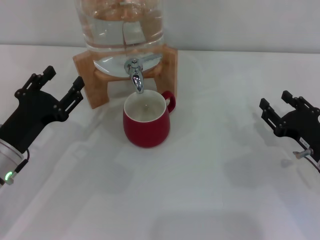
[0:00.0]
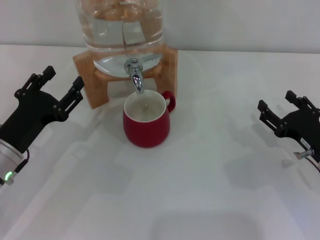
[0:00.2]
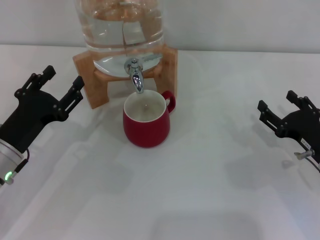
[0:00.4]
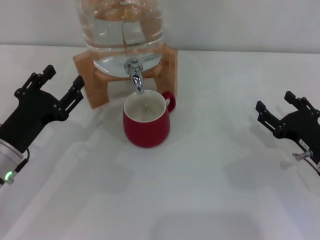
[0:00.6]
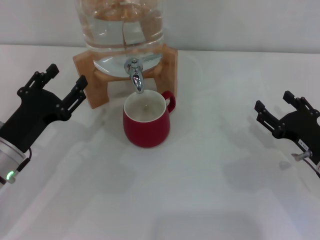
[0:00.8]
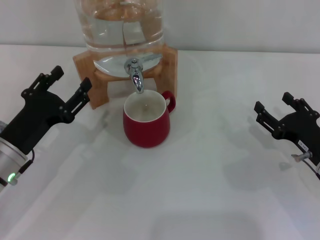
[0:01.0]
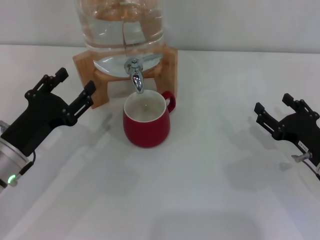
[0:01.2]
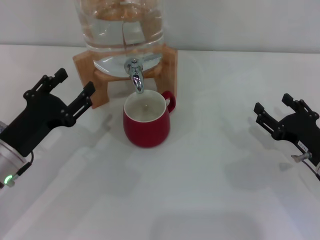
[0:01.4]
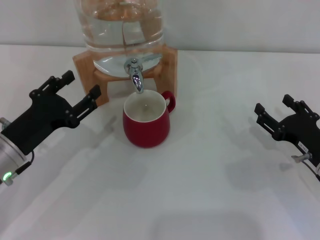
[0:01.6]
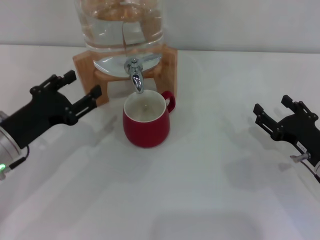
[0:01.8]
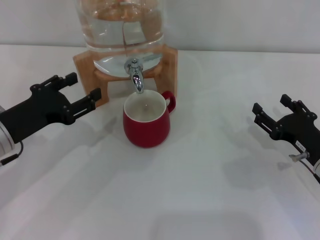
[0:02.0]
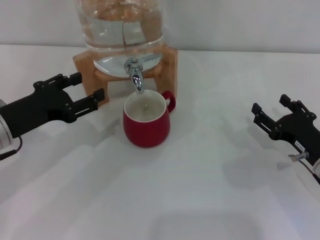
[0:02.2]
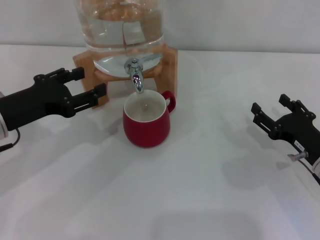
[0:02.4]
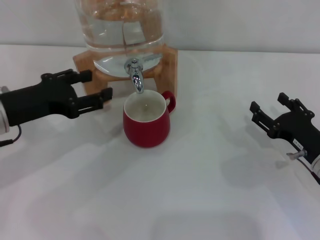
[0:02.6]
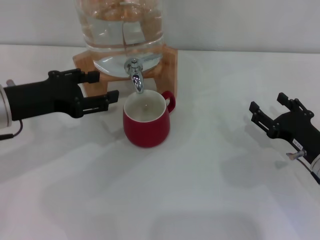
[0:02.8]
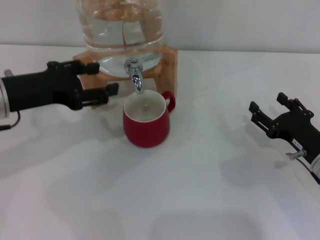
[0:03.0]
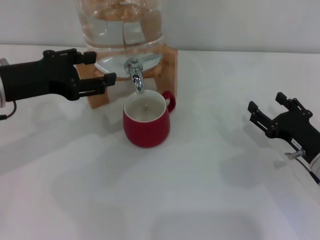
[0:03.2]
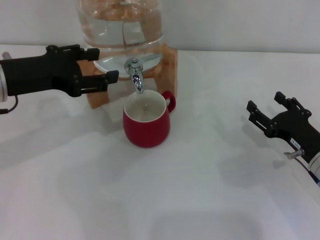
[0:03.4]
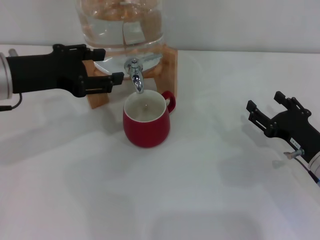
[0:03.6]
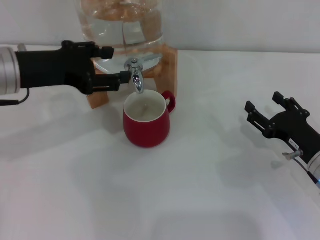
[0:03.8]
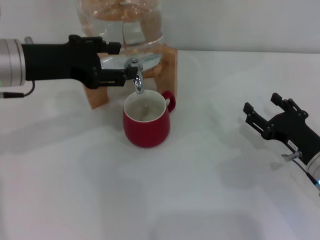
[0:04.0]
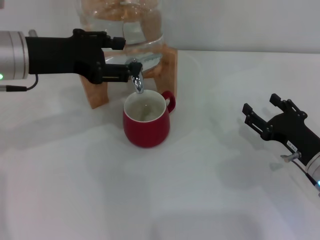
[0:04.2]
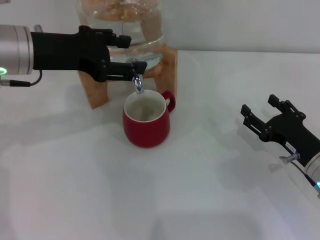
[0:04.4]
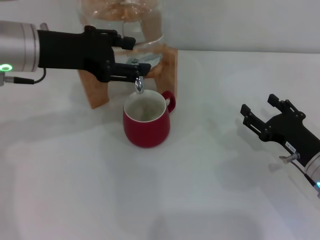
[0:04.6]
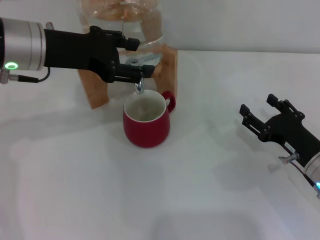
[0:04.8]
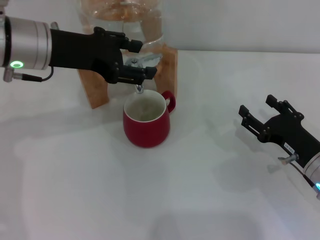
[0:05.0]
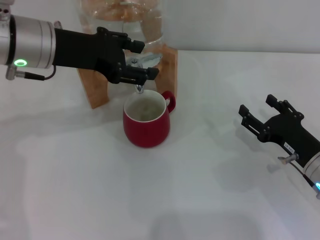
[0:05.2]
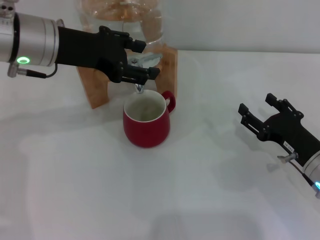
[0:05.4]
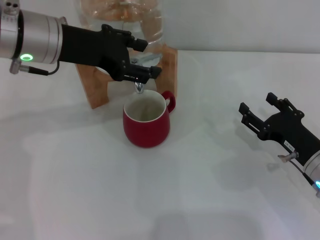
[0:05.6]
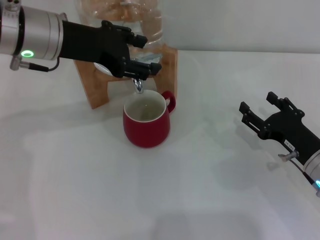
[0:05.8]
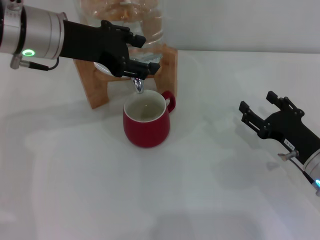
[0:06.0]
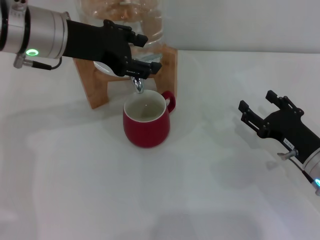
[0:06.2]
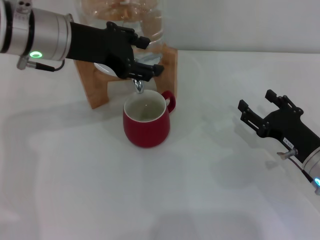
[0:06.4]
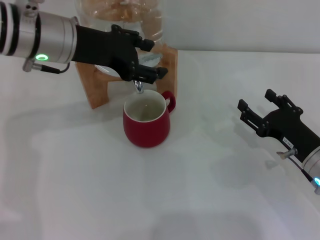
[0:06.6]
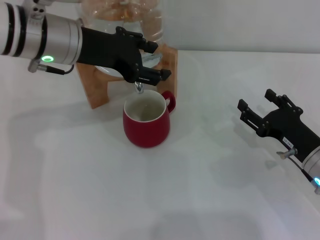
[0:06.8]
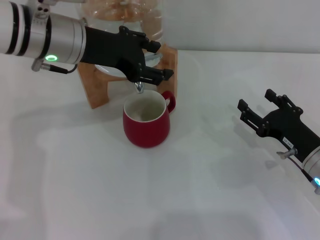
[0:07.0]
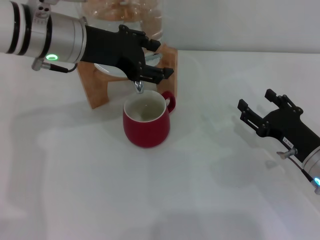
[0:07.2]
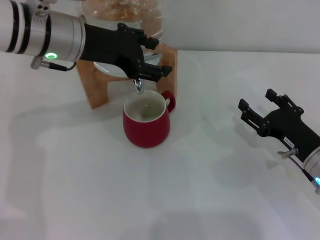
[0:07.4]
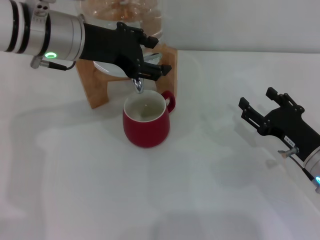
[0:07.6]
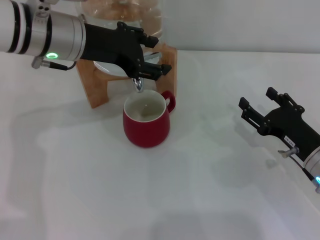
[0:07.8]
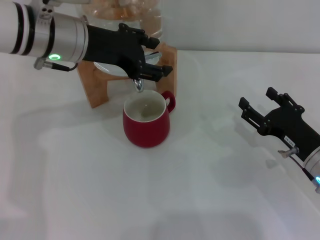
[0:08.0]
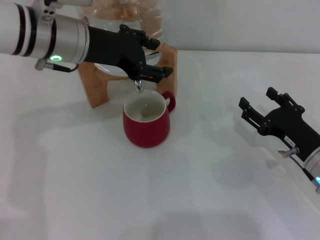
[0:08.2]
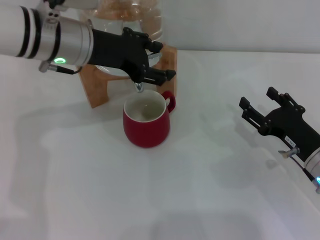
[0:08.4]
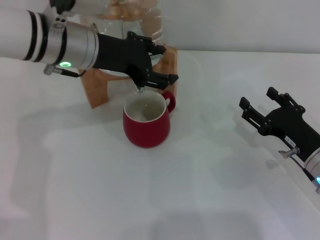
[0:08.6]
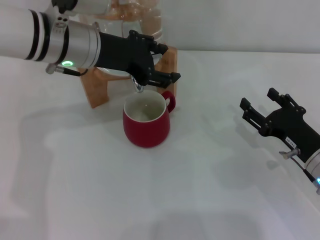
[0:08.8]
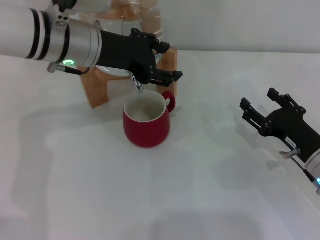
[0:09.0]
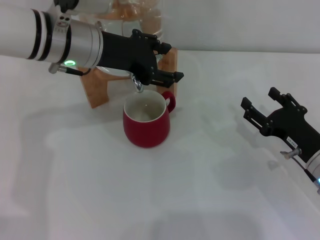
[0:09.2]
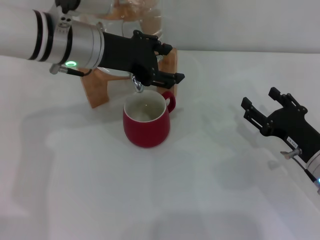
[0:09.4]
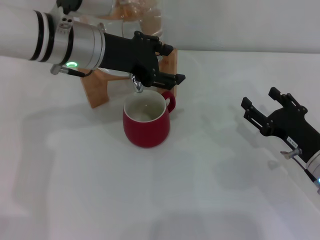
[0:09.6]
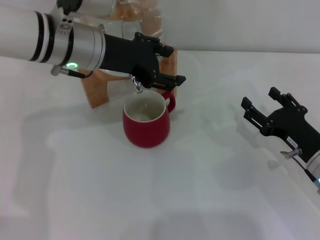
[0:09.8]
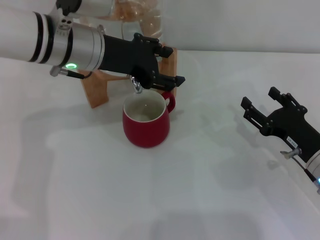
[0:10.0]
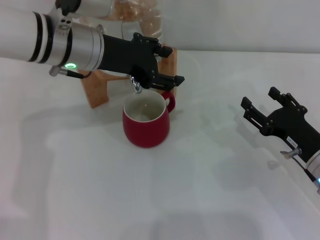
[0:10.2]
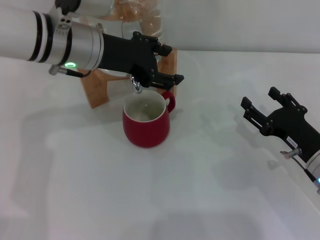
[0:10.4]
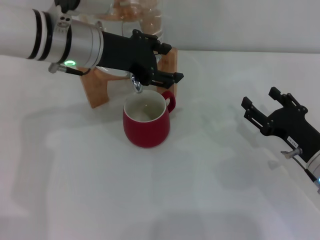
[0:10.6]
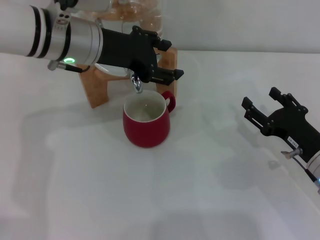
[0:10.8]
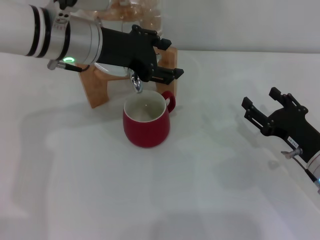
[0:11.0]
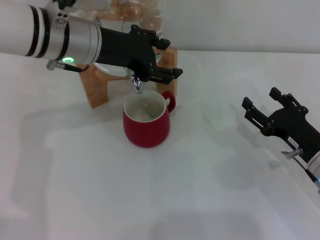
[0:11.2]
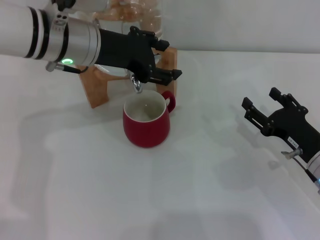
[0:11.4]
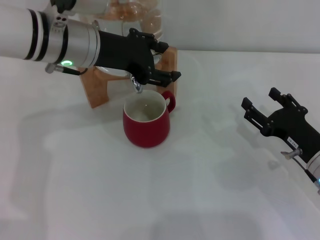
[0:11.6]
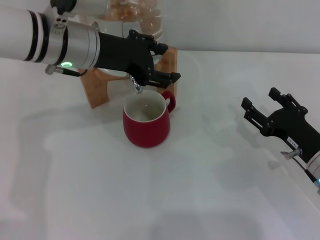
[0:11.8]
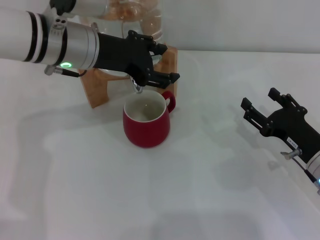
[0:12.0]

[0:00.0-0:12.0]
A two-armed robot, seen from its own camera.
Task of the whole recording: the right gripper pick up the red cup and place it horizontally under the faucet, the left gripper turn on the faucet to fill the cup, and then turn off the faucet.
0:00.0 to 0:01.6: The right gripper opens its fingers.
0:01.6 to 0:03.0: The left gripper goes some 10 cm upward.
0:03.0 to 0:04.4: The left gripper changes place by roughly 5 cm.
0:04.4 to 0:06.0: The grippers stay close to where they were, moving slightly.
0:06.0 to 0:09.0: There are only small adjustments of the grippers.
0:09.0 to 0:12.0: The two grippers keep their place.

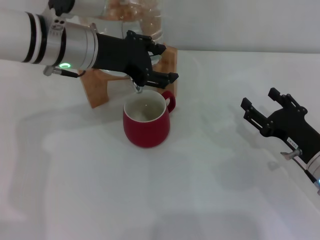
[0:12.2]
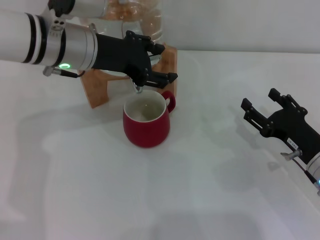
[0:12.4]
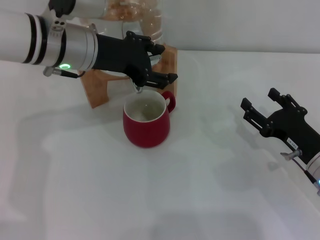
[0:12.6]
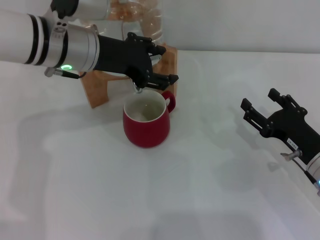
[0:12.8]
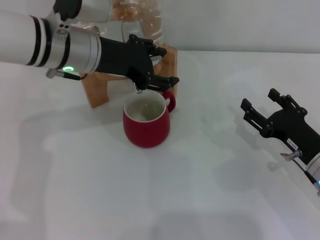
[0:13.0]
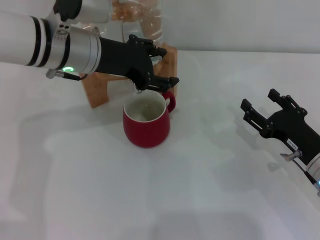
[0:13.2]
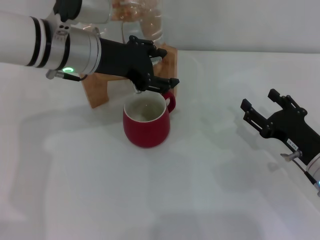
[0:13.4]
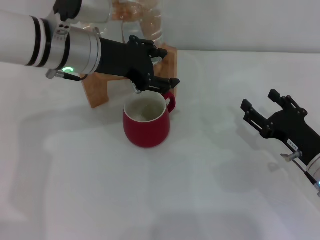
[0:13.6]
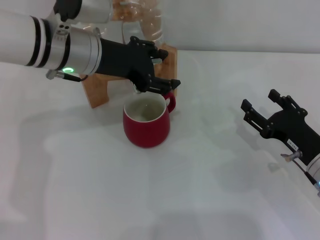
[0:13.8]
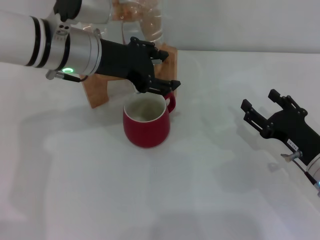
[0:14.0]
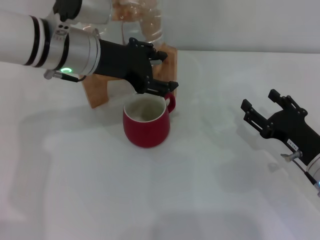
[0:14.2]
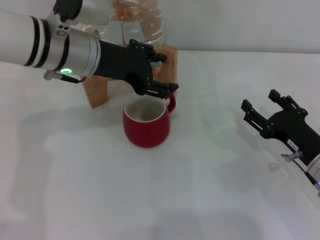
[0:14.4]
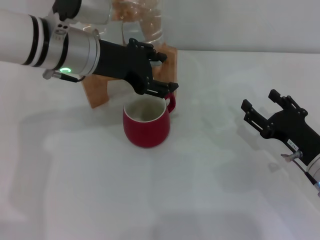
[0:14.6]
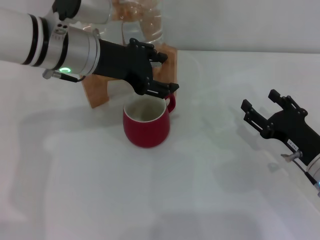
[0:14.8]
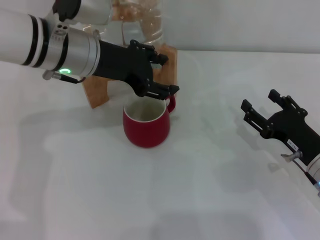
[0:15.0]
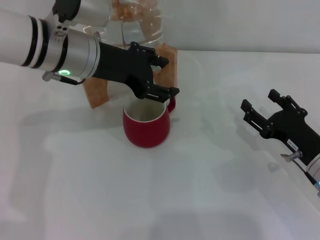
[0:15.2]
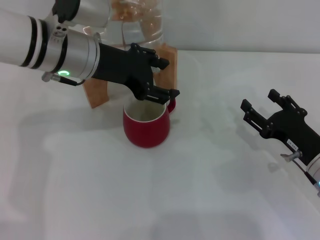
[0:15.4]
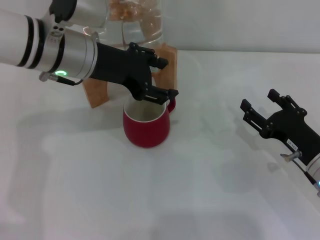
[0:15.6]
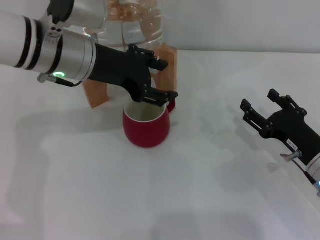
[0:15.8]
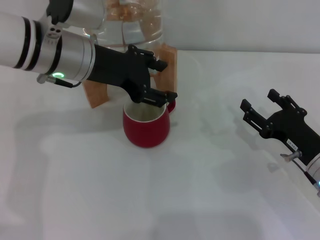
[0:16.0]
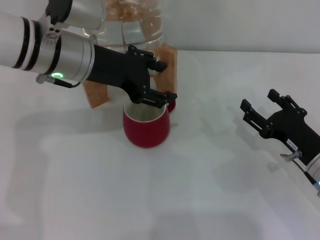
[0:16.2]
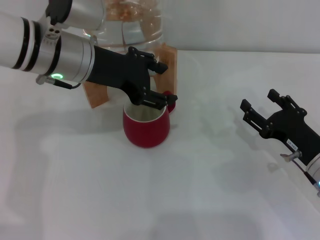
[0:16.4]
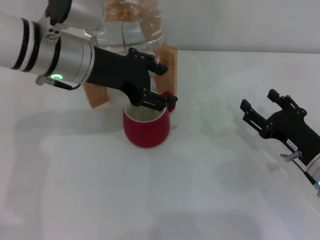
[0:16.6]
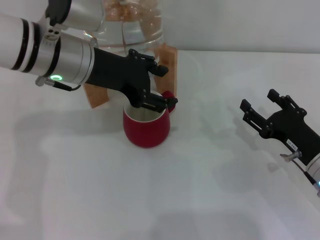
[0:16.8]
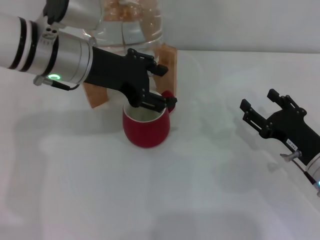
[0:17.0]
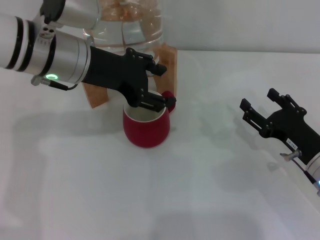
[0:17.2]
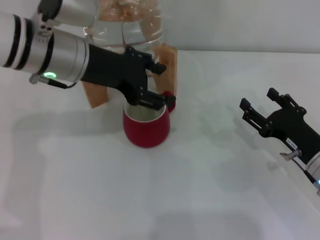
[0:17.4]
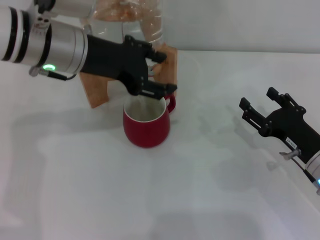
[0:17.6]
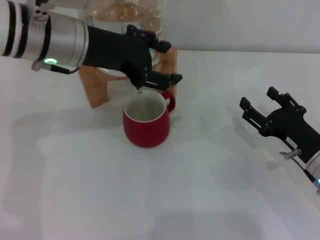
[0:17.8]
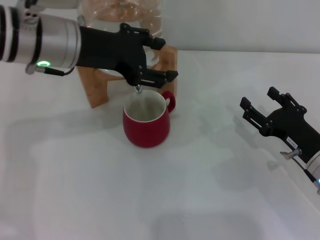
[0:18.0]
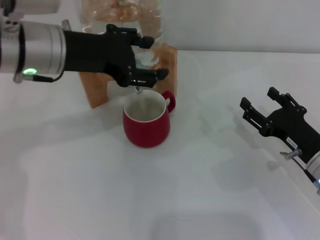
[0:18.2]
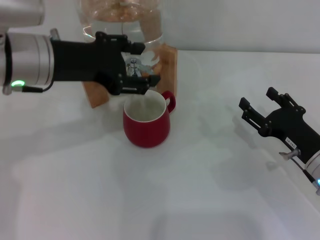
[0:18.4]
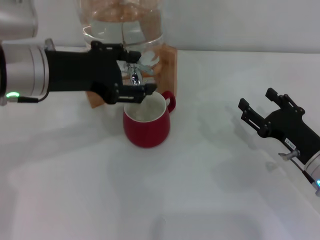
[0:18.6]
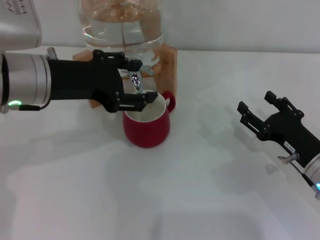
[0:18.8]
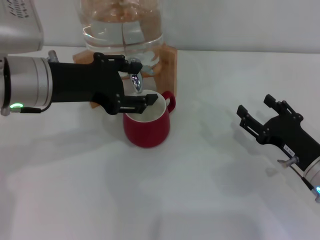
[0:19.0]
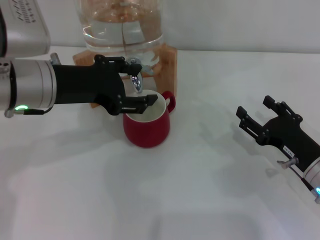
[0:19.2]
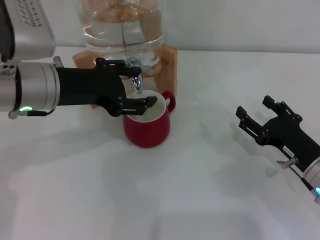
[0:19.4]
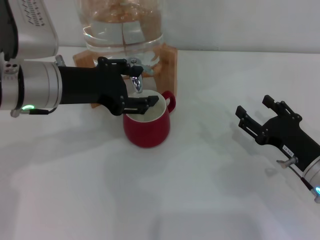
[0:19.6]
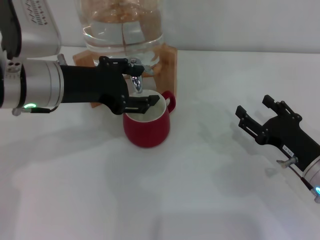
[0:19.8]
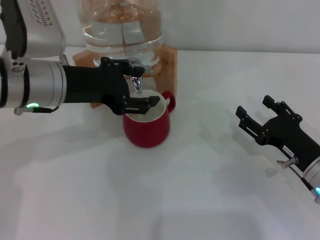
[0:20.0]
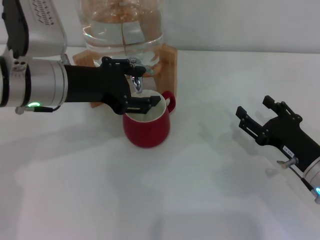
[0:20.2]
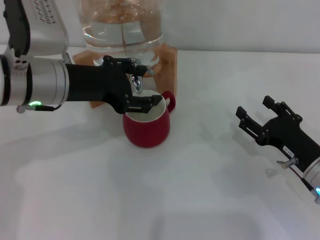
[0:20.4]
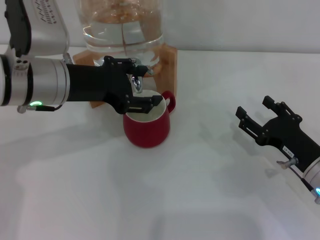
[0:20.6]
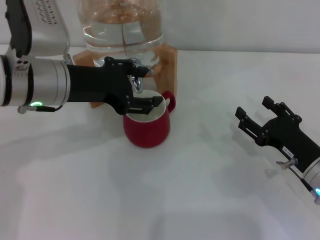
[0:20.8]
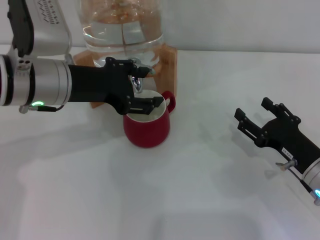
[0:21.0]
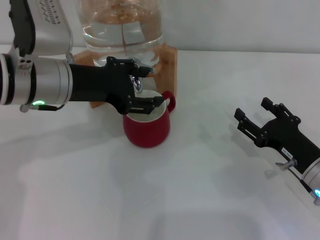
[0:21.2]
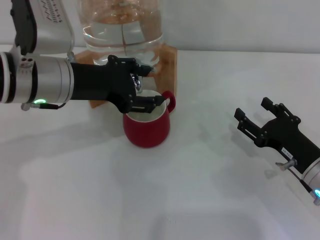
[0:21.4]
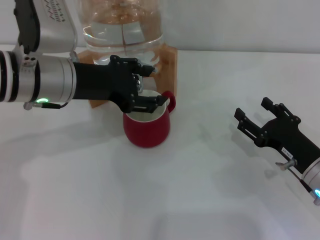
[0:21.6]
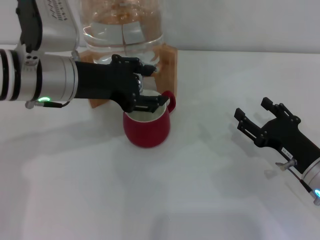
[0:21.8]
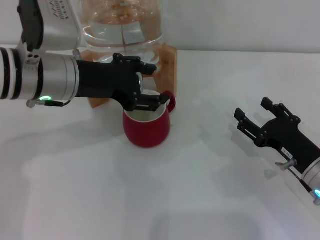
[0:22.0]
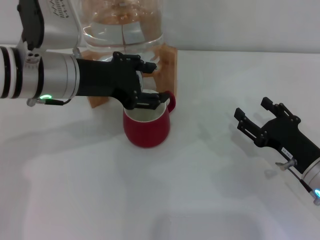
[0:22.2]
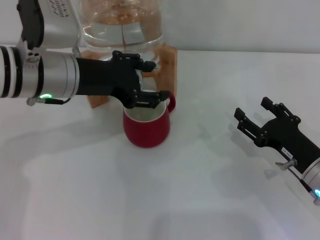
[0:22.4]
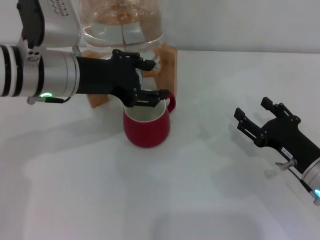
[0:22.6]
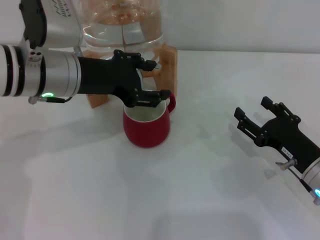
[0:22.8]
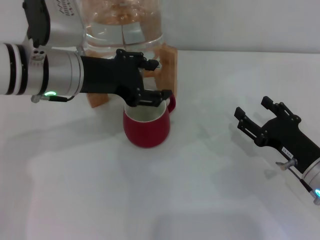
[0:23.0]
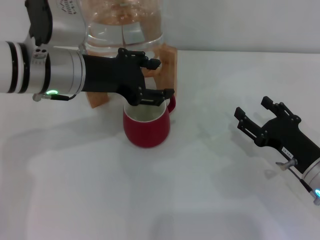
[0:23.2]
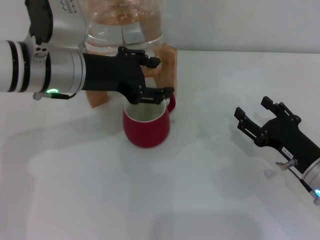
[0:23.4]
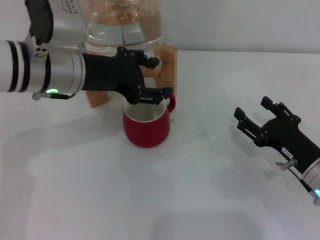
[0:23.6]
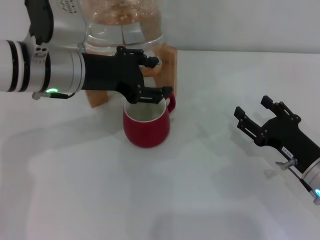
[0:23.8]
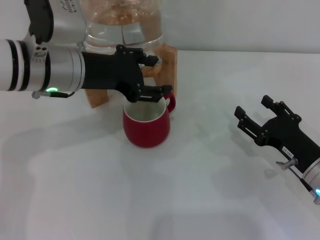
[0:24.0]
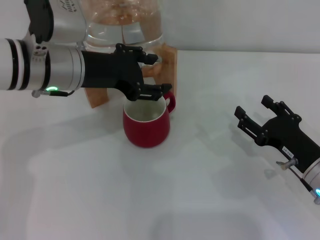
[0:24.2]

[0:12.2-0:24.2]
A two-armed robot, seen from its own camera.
Task of the whole recording: the right gripper pick up the red cup and place it horizontally under the faucet, the left gripper turn on the faucet to fill the cup, and then turn off the faucet.
Step, 0:12.2 to 0:19.8: Open the dispenser valve and fill the cup with water with the left gripper.
0:12.2 to 0:15.2: Neither gripper changes place.
0:15.2 to 0:16.6: Neither gripper changes place.
0:16.6 to 0:18.2: There are only small adjustments of the grippers.
0:18.2 to 0:19.8: There are only small adjustments of the grippers.
0:19.8 to 0:21.2: Both grippers stay put.
0:21.2 to 0:22.6: The two grippers keep their place.
0:22.6 to 0:24.2: Both grippers stay put.
